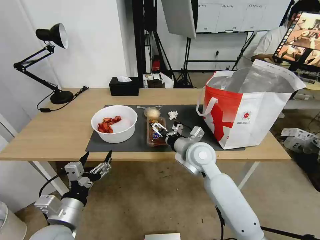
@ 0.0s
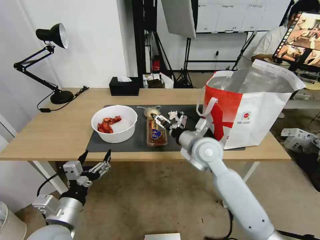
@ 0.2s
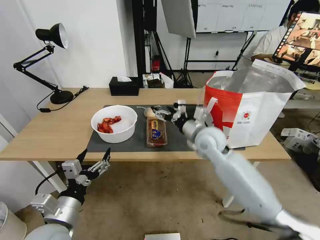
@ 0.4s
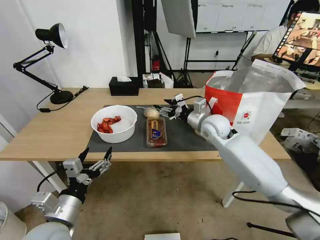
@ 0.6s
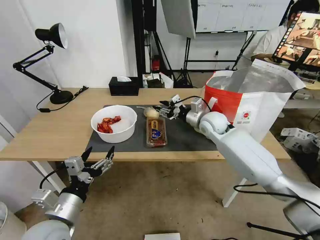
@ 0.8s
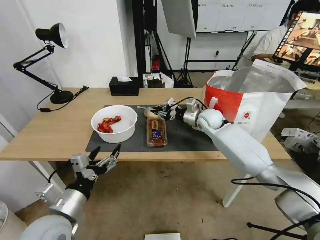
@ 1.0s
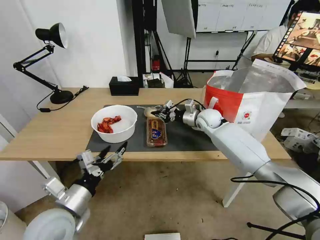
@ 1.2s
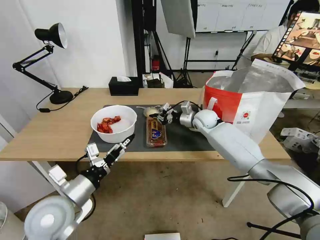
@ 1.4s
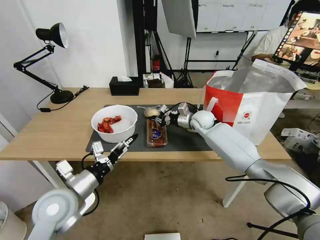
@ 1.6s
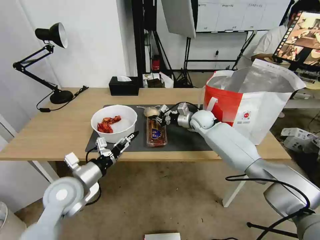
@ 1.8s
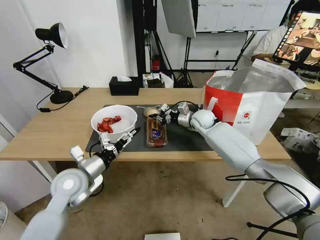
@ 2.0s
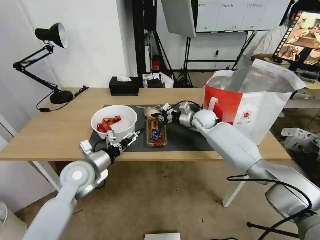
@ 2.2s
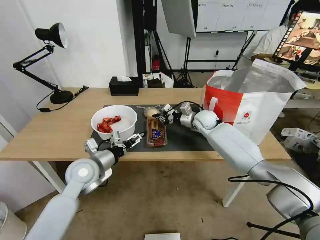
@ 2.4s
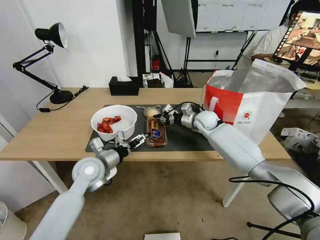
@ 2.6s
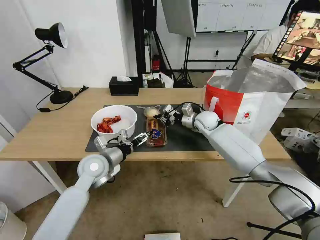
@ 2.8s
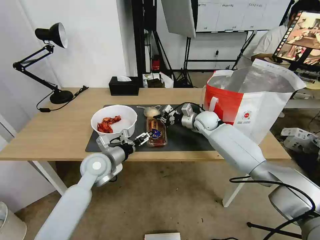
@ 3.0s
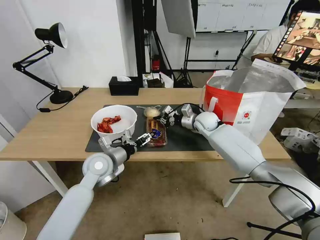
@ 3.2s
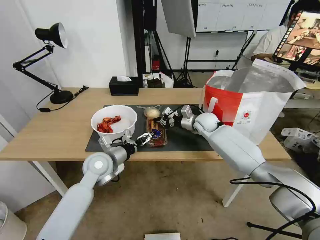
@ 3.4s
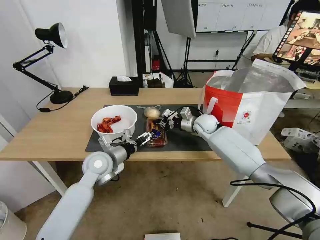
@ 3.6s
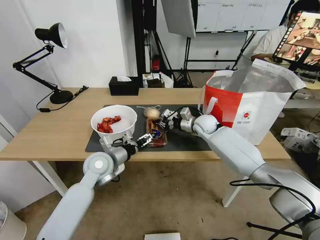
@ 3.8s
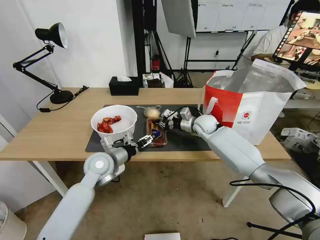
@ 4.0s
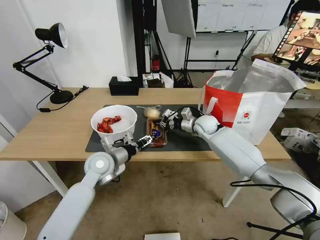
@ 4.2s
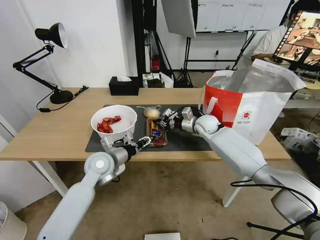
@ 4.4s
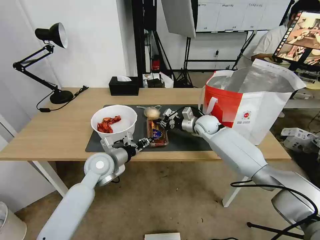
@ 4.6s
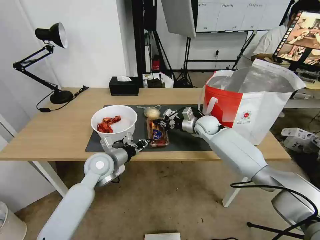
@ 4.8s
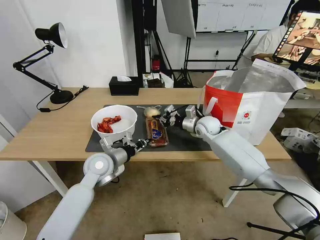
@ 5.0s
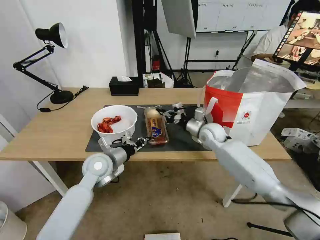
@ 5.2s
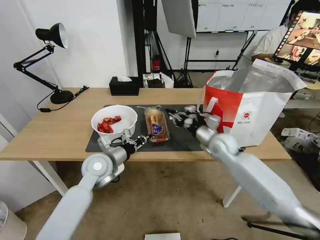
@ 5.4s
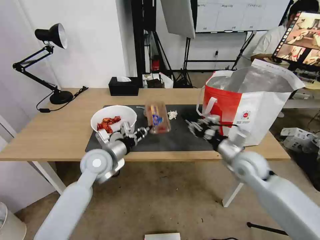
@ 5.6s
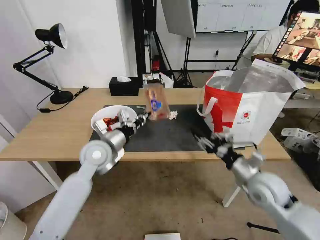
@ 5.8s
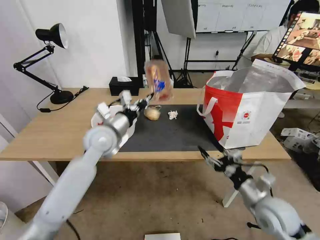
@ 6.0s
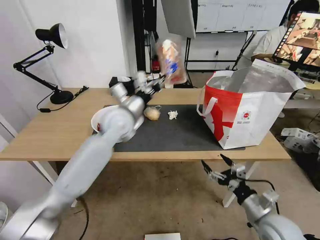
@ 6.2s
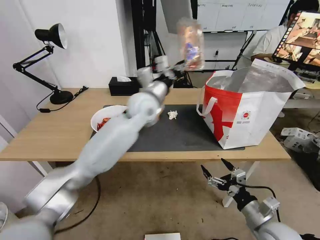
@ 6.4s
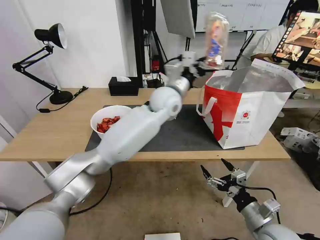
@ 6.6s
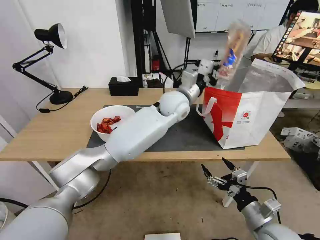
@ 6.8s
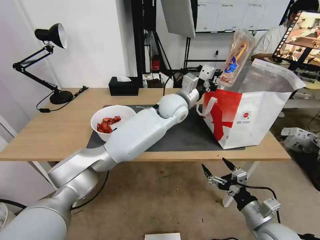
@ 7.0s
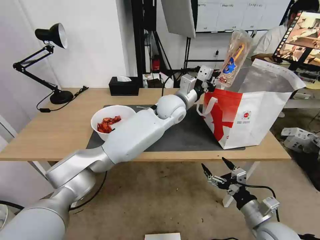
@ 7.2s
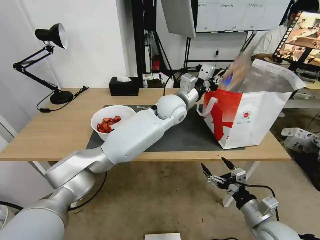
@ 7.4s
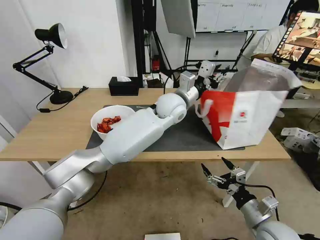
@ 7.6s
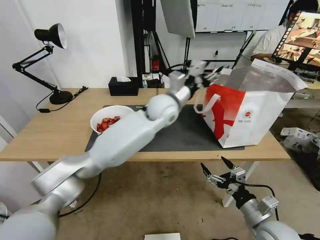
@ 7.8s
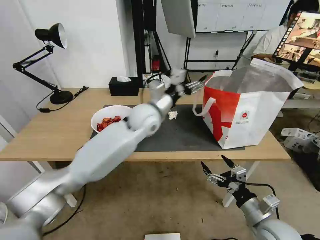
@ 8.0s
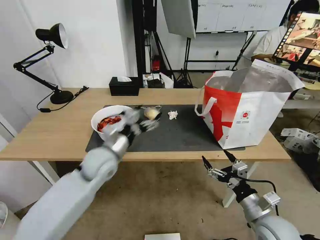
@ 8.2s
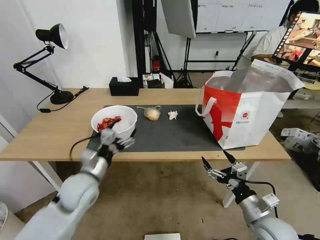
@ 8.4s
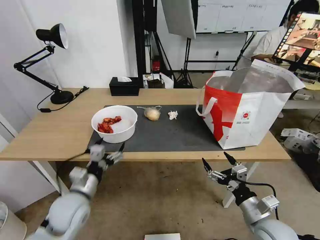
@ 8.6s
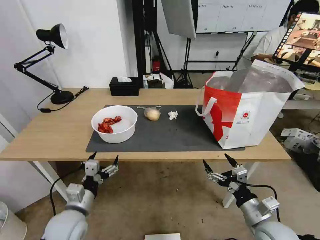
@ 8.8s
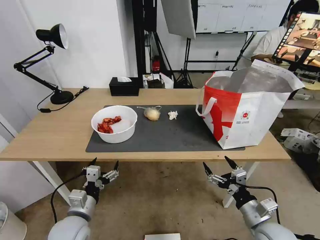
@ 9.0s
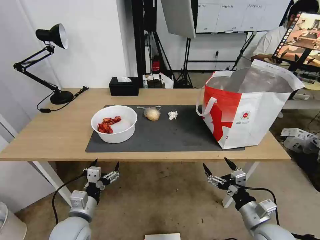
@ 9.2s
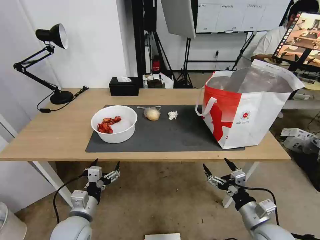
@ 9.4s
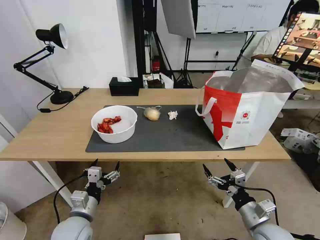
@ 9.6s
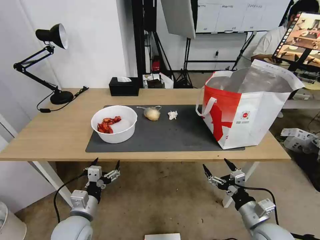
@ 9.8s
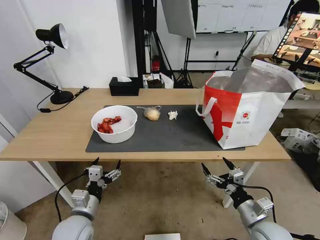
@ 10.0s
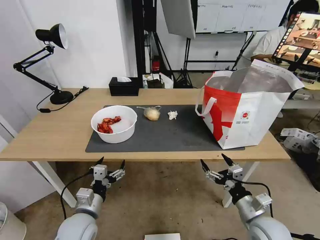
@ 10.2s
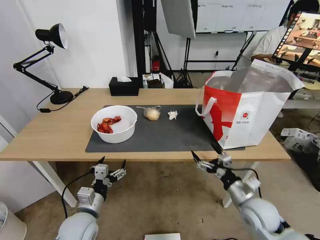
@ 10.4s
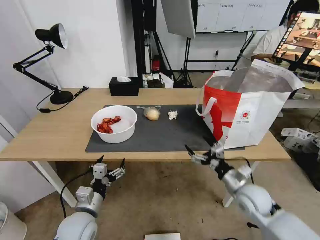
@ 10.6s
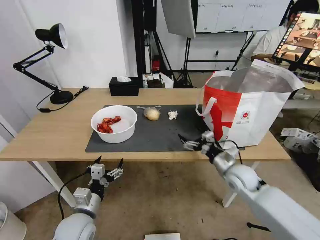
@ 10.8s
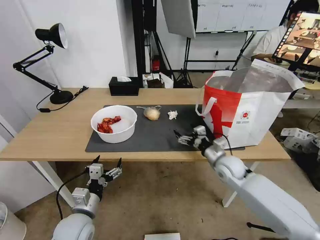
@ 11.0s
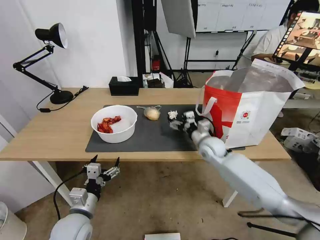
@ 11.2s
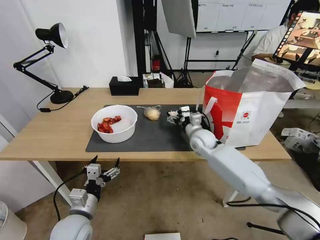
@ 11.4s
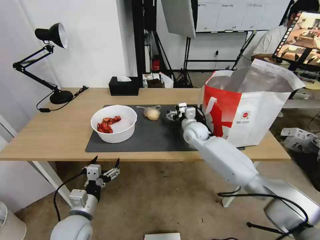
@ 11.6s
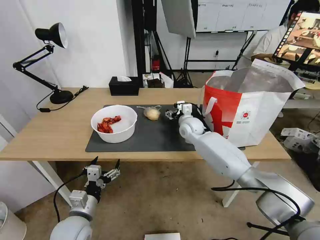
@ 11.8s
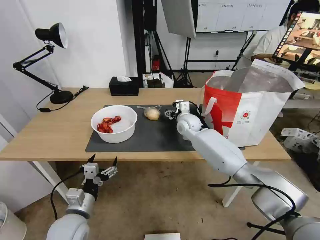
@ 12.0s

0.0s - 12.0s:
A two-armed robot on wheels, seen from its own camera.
Task of the whole recording: Pick up the trash from the table and place it into the takeout bag.
0.0s - 1.6s: The right gripper shifts approximately 20 cm forward, and closes up, while the left gripper heads forward, covering roughly 10 cm.
1.6s - 3.0s: The left gripper heads forward, covering about 15 cm.
3.0s - 4.4s: The left gripper closes.
4.4s - 6.0s: The right gripper is displaced backward by roughly 35 cm, and opens up; the left gripper goes approximately 10 cm upward, and closes up.
6.0s - 7.6s: The left gripper shifts roughly 25 cm to the right and forward, and opens its fingers. The right gripper shifts by some 5 cm.
7.6s - 9.0s: The left gripper moves backward, to the left and downward, some 50 cm, and opens up.
9.0s - 10.4s: The right gripper goes about 5 cm forward.
10.4s - 12.0s: The right gripper shifts roughly 35 cm forward and to the left.

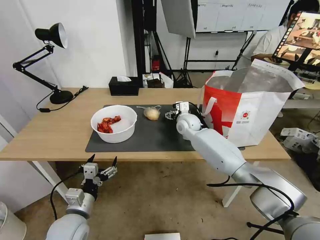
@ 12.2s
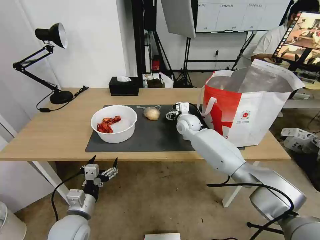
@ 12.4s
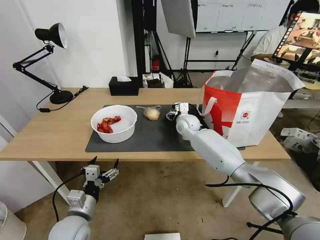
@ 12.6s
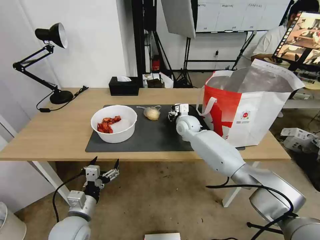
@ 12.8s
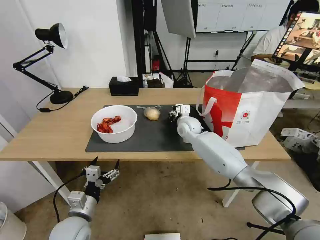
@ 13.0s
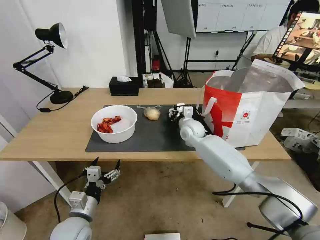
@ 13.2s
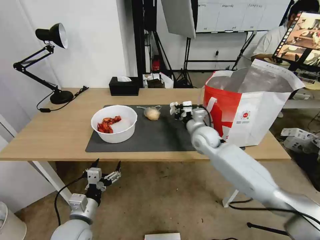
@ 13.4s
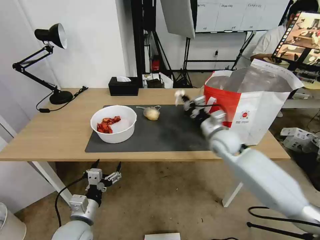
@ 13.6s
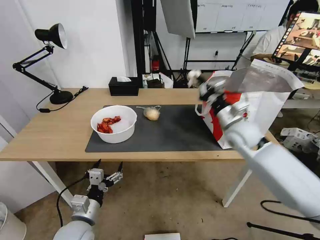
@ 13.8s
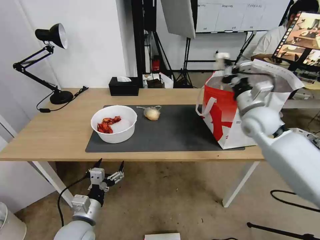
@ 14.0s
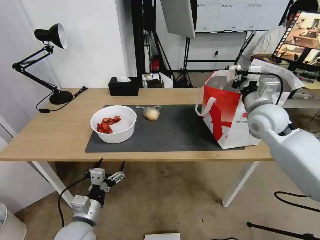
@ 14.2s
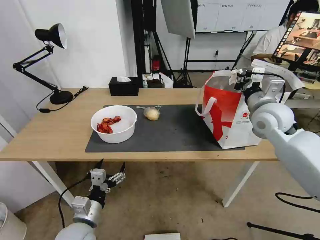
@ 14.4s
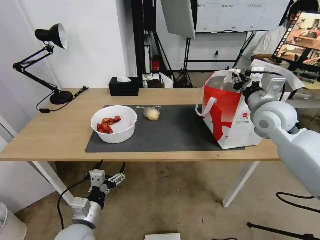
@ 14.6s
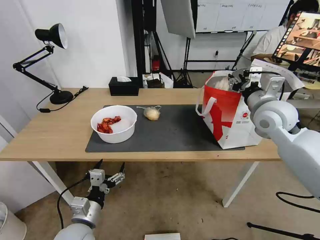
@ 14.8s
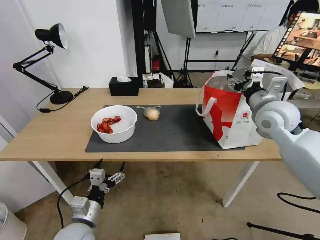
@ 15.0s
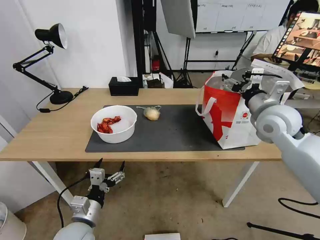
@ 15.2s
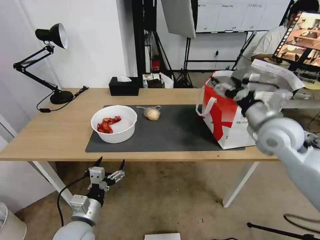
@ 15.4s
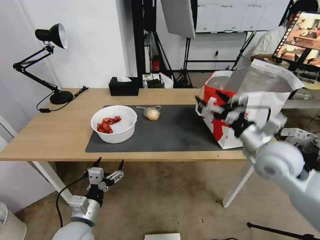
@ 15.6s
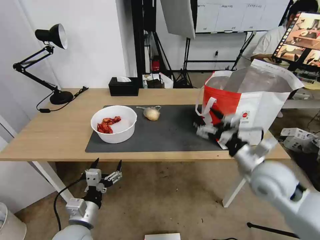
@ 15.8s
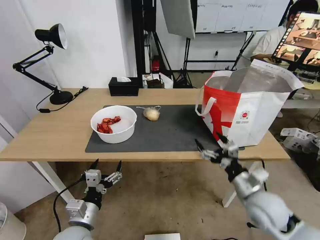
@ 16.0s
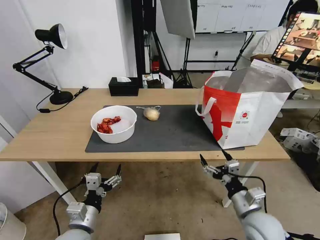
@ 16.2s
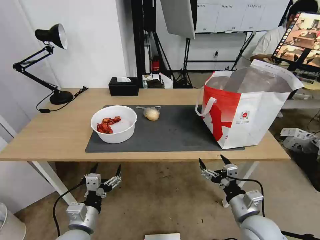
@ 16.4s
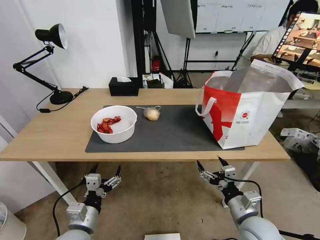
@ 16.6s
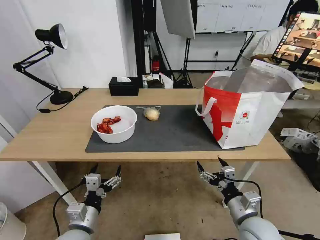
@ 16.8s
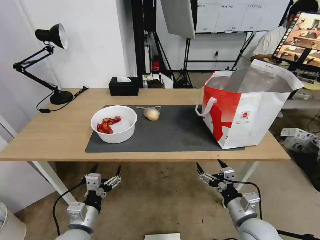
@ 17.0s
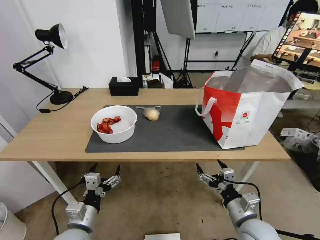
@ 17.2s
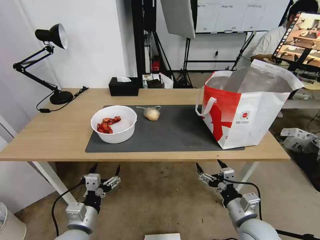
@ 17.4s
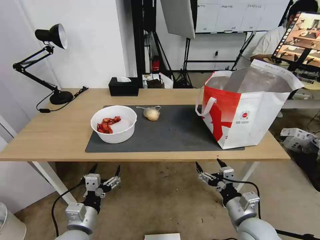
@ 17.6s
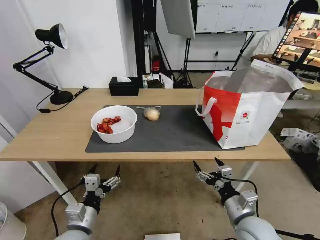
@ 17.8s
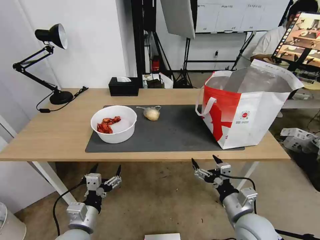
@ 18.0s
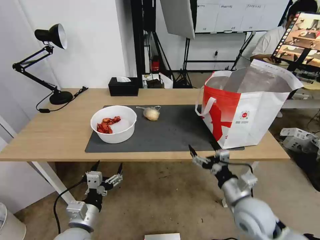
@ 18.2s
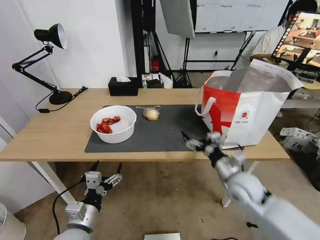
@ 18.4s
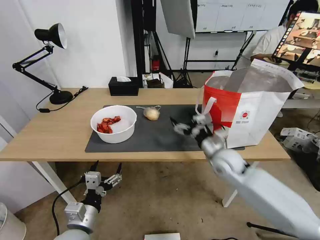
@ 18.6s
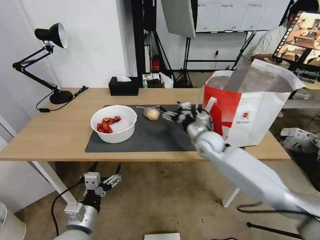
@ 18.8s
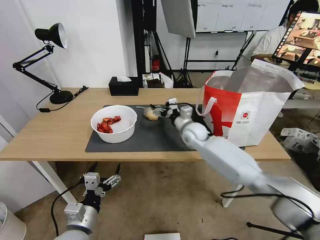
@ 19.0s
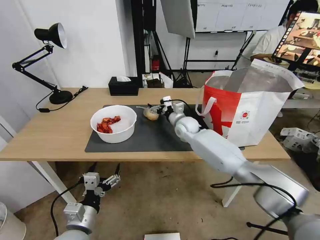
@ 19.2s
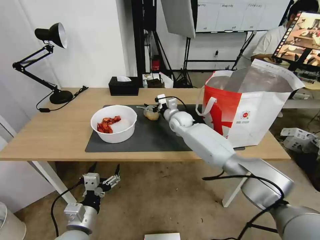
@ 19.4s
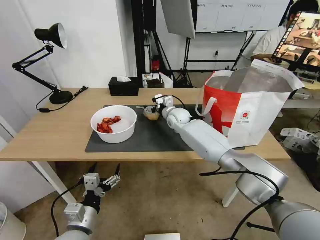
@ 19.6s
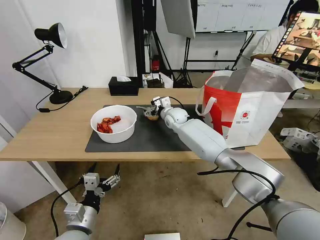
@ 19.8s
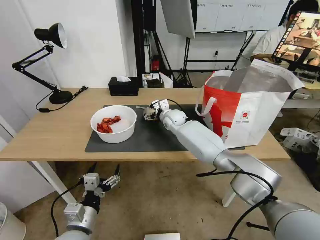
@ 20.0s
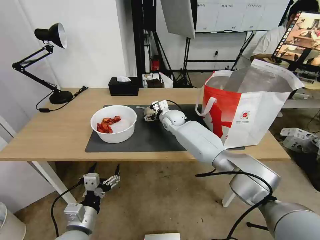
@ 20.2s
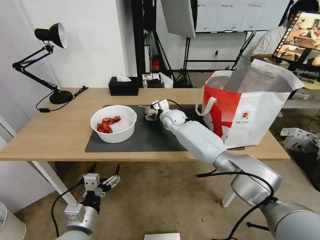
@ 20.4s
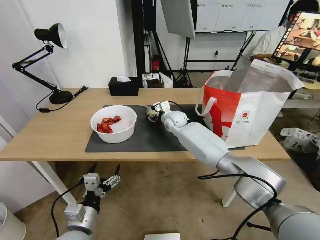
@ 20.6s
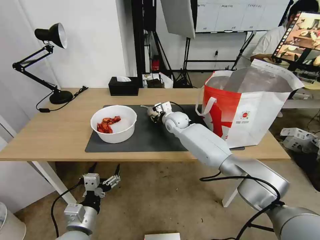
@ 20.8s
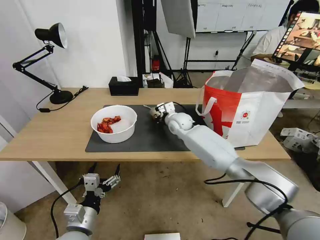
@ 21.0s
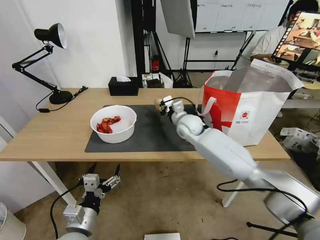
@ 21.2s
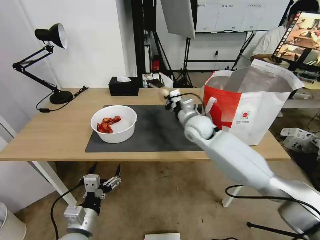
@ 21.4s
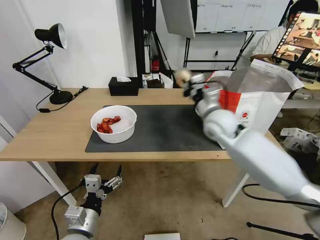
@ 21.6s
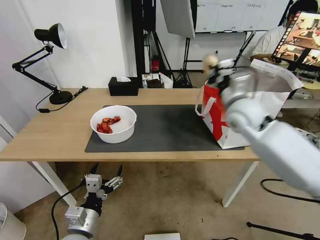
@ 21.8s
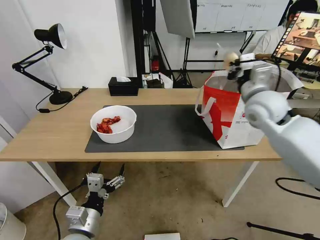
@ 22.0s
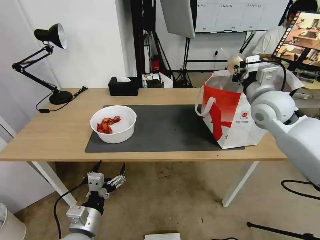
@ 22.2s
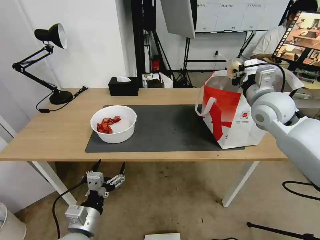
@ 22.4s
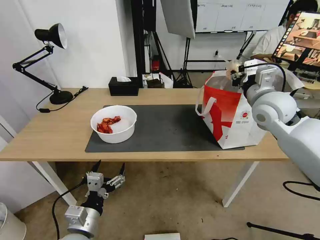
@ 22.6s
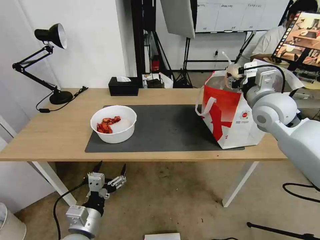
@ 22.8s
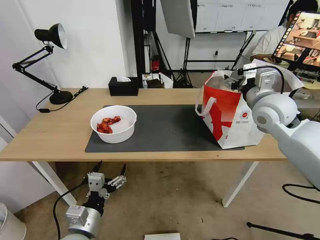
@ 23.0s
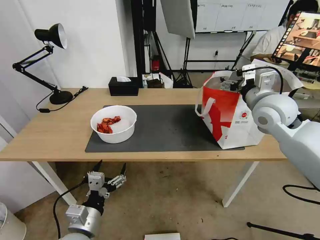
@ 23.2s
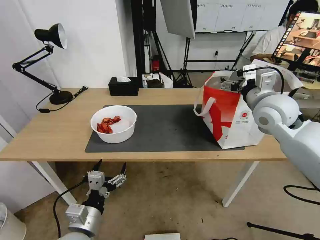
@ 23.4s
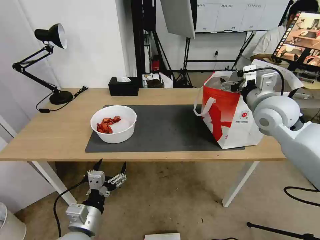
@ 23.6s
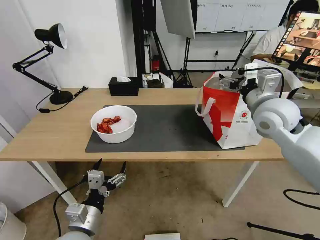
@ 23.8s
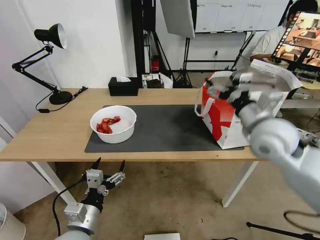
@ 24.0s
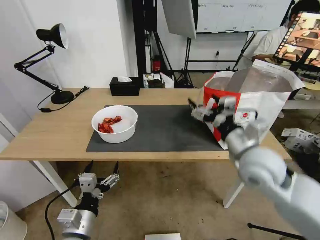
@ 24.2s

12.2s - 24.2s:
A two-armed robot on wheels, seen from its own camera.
Task of the whole recording: Pick up the trash from the table and place it into the takeout bag.
12.2s - 13.8s: The right gripper shifts about 20 cm to the right, backward and upward, and closes.
13.8s - 15.2s: The right gripper shifts approximately 10 cm upward and to the right, and opens its fingers.
15.2s - 16.6s: The right gripper moves downward and backward, some 30 cm.
16.6s - 18.2s: The right gripper shifts by about 5 cm.
18.2s - 19.8s: The right gripper heads forward and to the left, covering about 40 cm.
19.8s - 21.2s: The right gripper goes roughly 10 cm backward, and closes.
21.2s - 22.6s: The right gripper moves to the right, upward and backward, some 25 cm.
22.6s - 24.2s: The right gripper moves backward, downward and to the left, some 15 cm, and opens.
